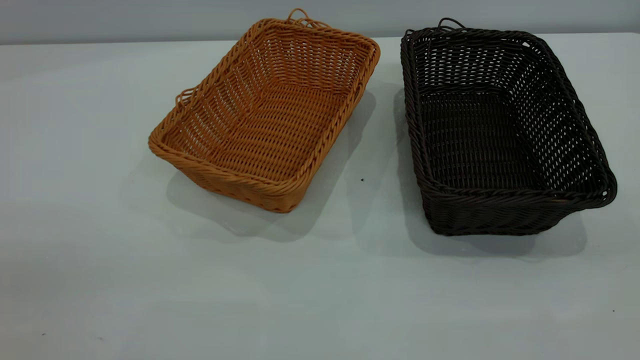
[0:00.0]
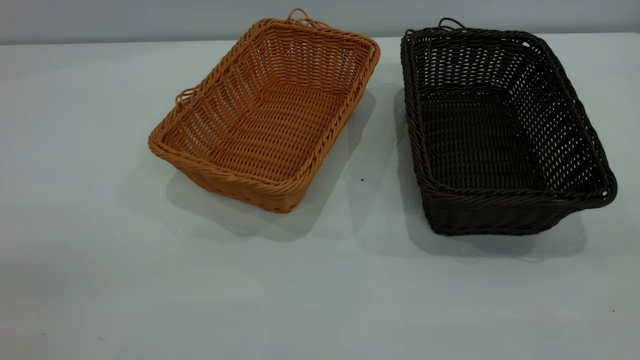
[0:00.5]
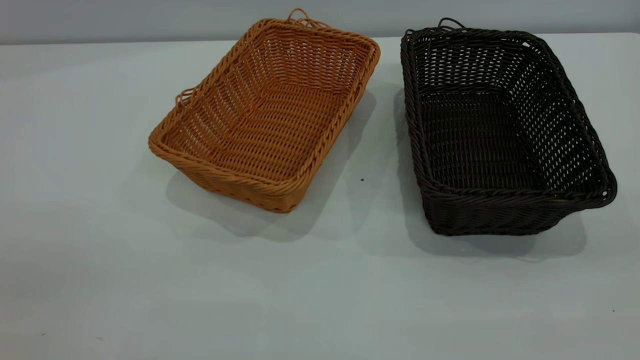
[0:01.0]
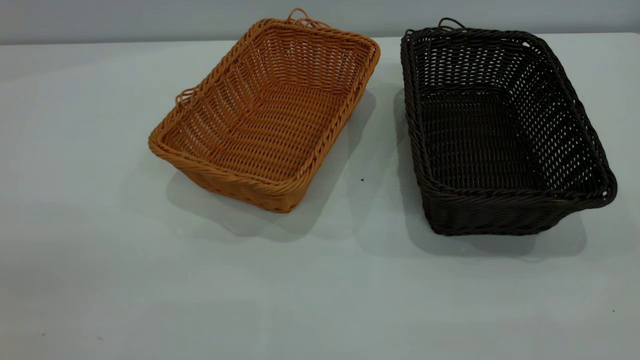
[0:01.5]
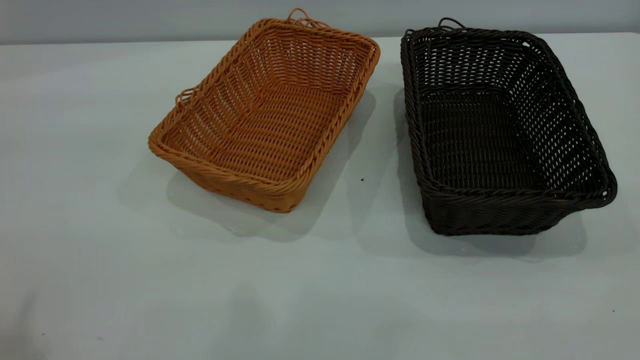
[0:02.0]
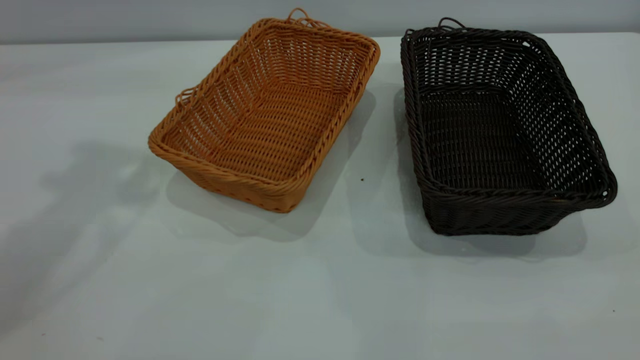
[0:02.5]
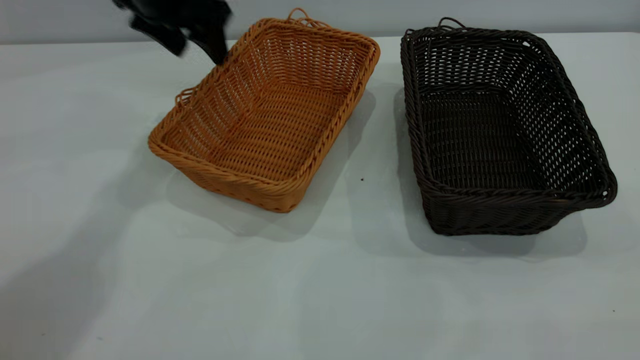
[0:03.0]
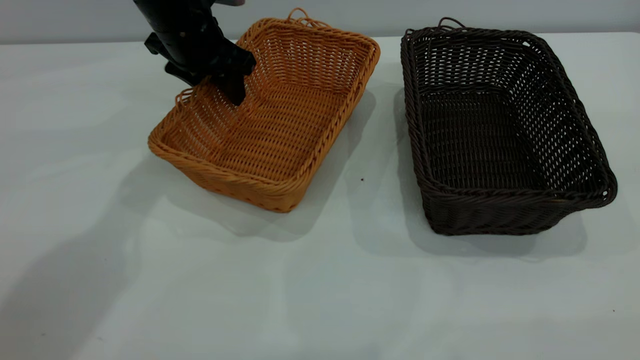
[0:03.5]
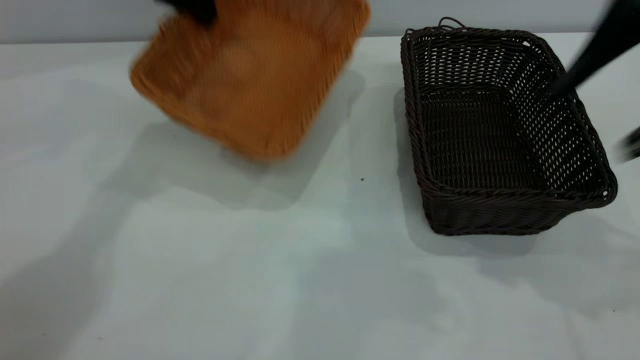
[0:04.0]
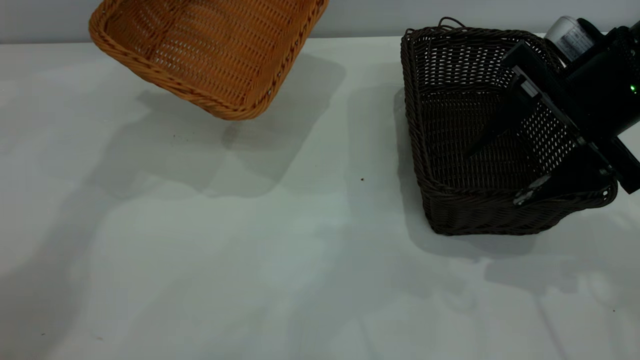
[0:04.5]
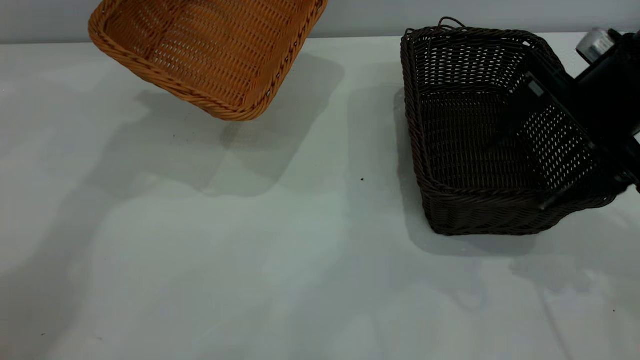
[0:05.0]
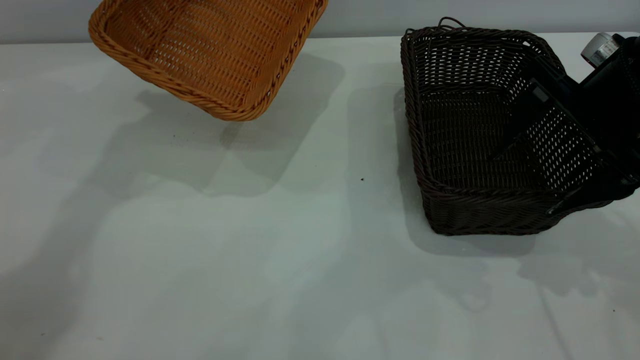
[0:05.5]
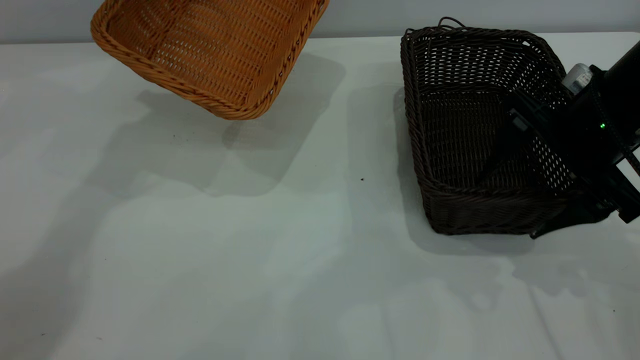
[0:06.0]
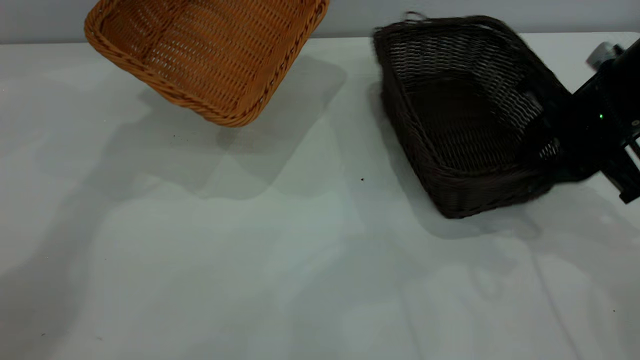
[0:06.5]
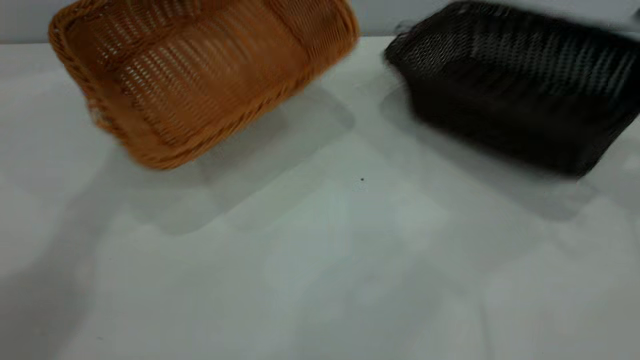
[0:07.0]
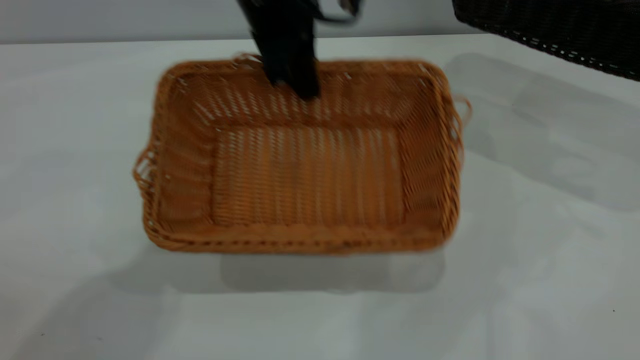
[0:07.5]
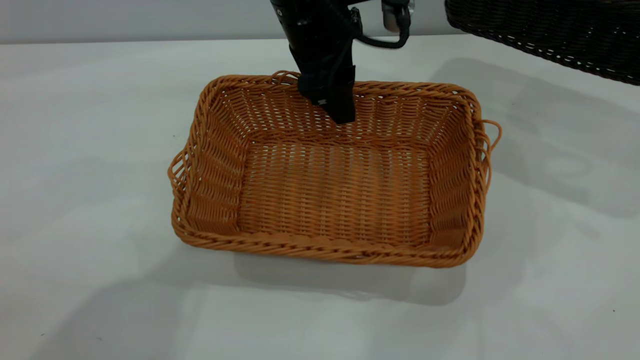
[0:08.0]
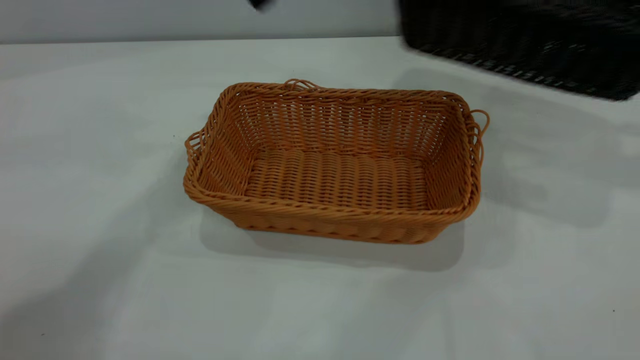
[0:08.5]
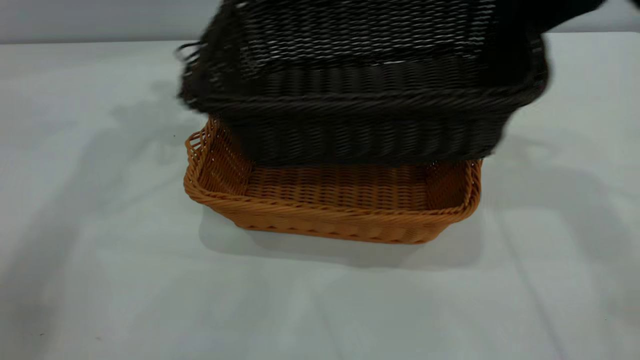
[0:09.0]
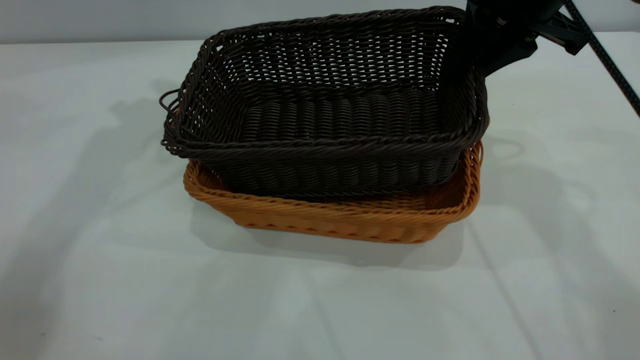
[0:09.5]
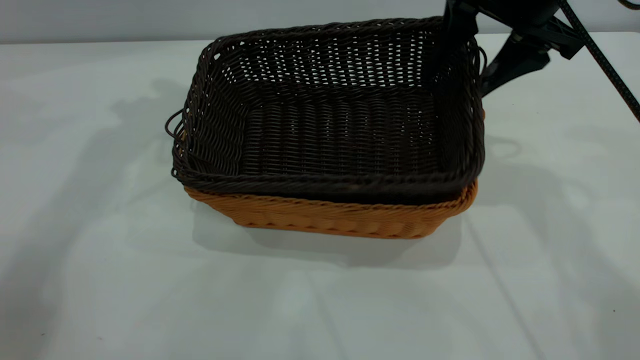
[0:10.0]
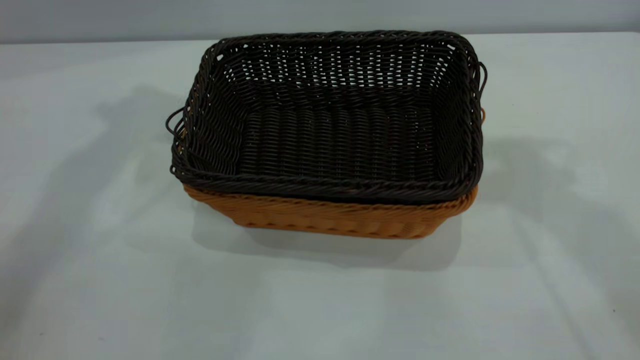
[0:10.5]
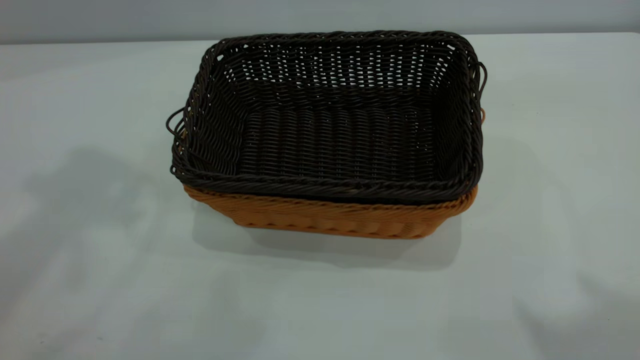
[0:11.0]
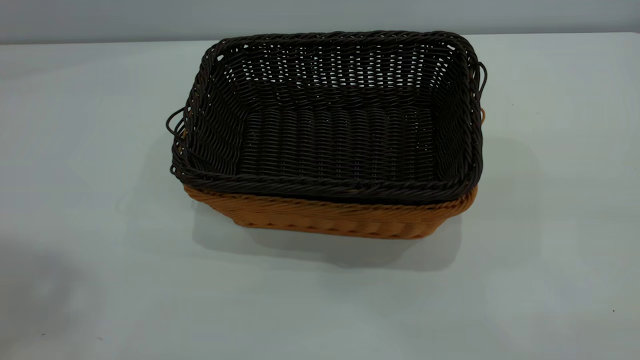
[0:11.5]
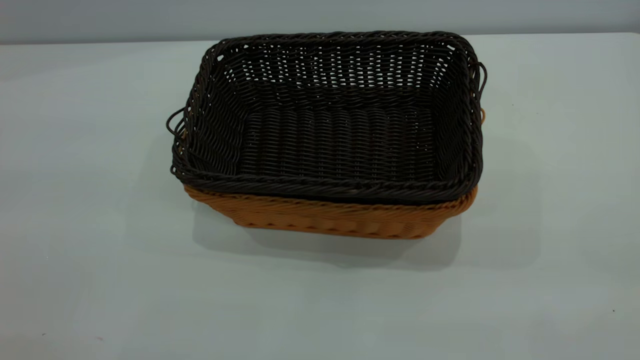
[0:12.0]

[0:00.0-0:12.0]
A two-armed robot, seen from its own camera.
Task of the whole recording: the left gripper grasp the brown basket and place it in the center of the table, the right gripper grasp the black basket and place it inside the brown one.
Step, 0:00.0 to 0:07.0: Pick up the light basket with the right gripper.
Step, 0:07.5 to 0:08.0: Place the light-colored basket in the center.
Step, 0:08.5 to 0:10.0: Place the dark basket on top of the light basket.
0:02.0 to 0:04.0: The right gripper travels forward by roughly 25 cm. The left gripper heads forward and downward, covering roughly 40 cm, and closes up.
0:04.0 to 0:06.0: The right gripper shifts about 10 cm downward.
0:06.0 to 0:08.0: The right gripper shifts approximately 25 cm to the right and upward, and closes. The left gripper heads to the right, backward and downward, covering approximately 20 cm, and opens its fingers.
0:08.0 to 0:10.0: The right gripper travels to the left by some 25 cm, and opens up, while the left gripper moves to the left and upward, some 25 cm.
0:10.0 to 0:12.0: Both grippers travel together backward, some 40 cm.

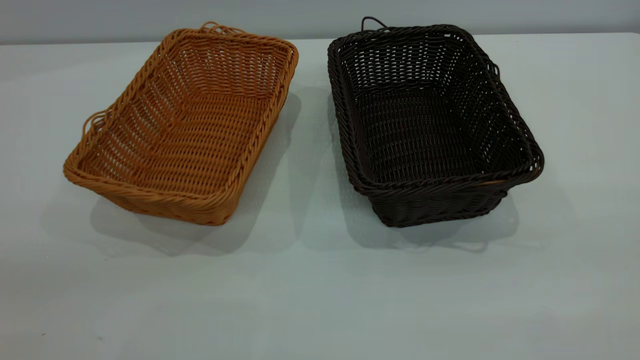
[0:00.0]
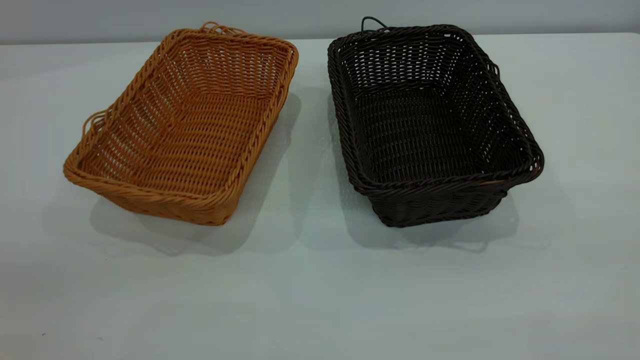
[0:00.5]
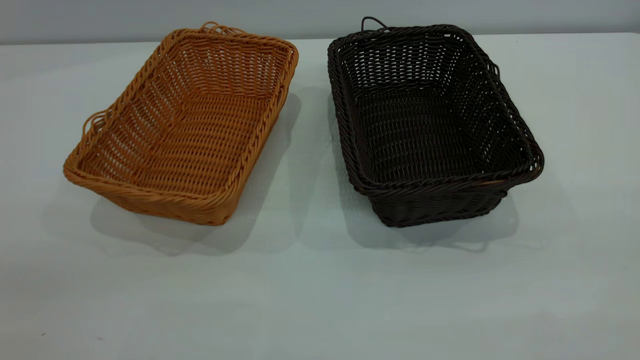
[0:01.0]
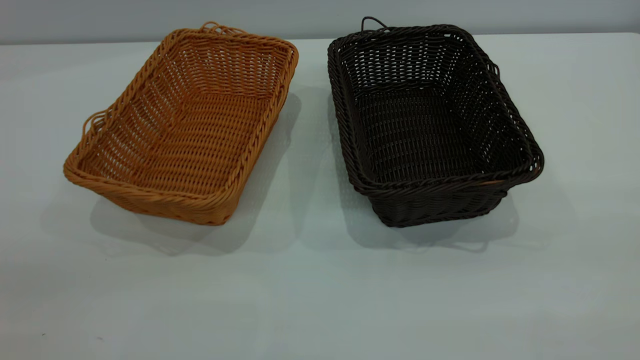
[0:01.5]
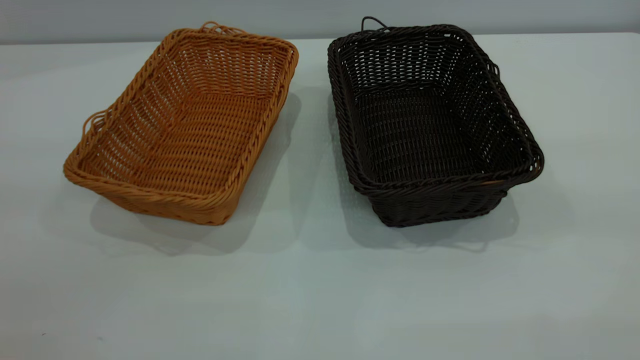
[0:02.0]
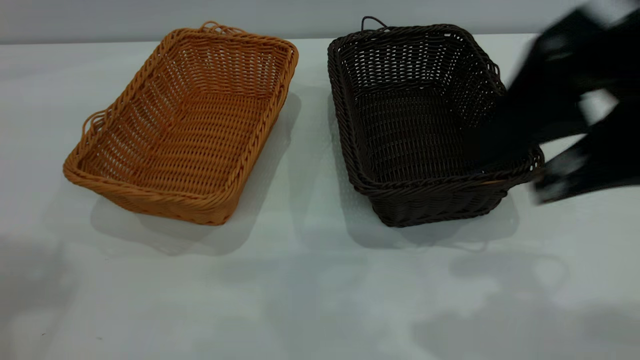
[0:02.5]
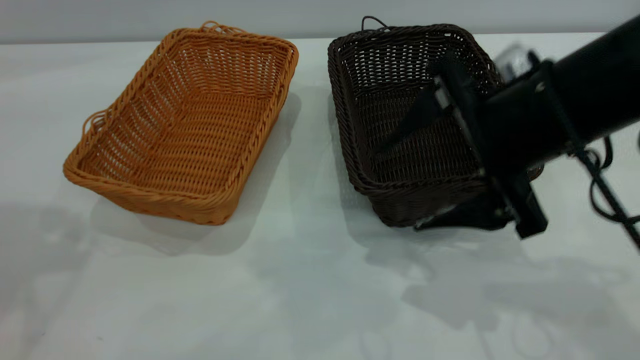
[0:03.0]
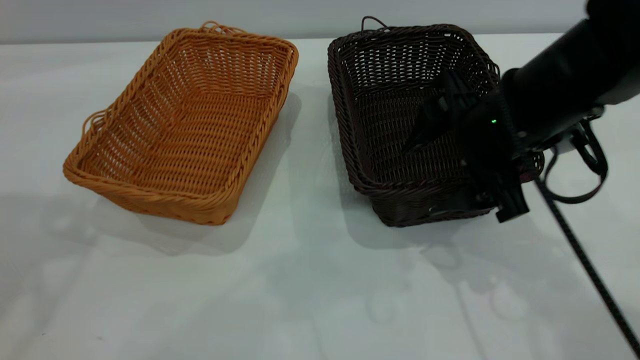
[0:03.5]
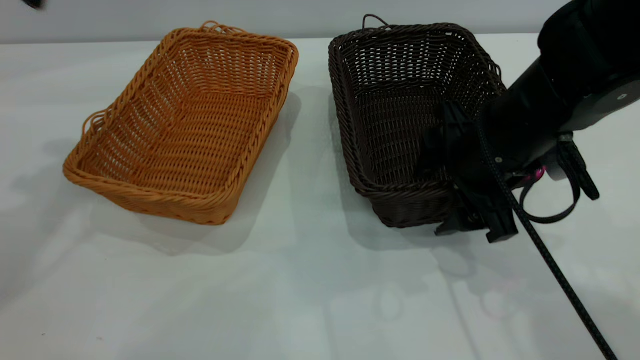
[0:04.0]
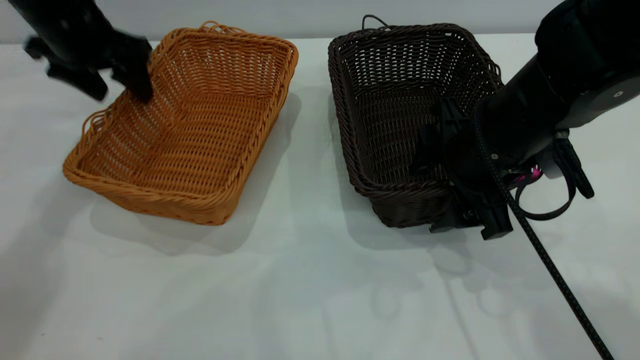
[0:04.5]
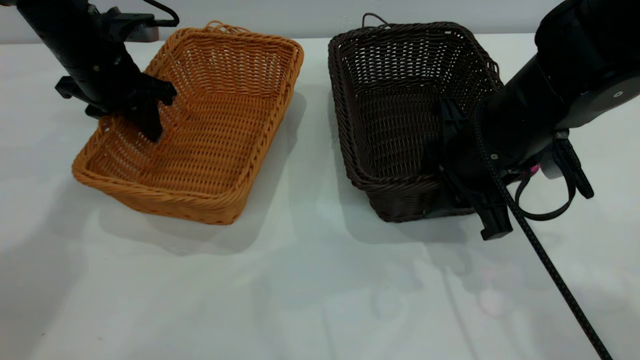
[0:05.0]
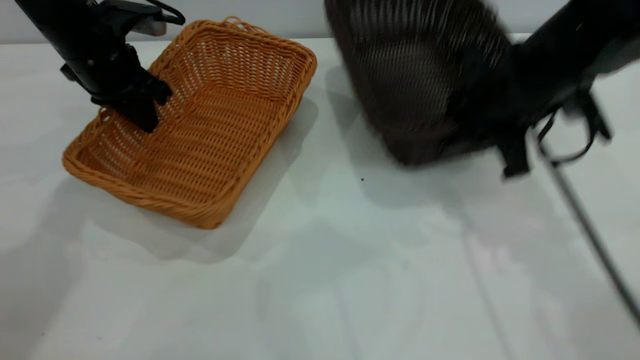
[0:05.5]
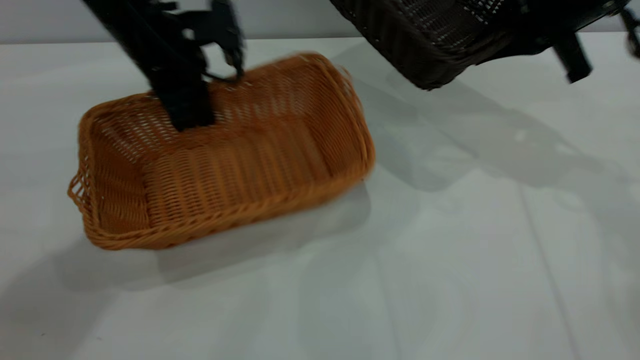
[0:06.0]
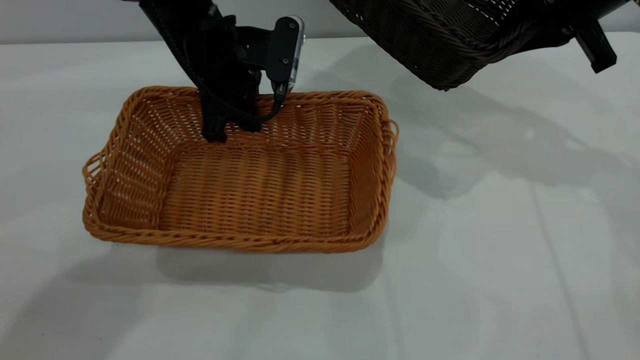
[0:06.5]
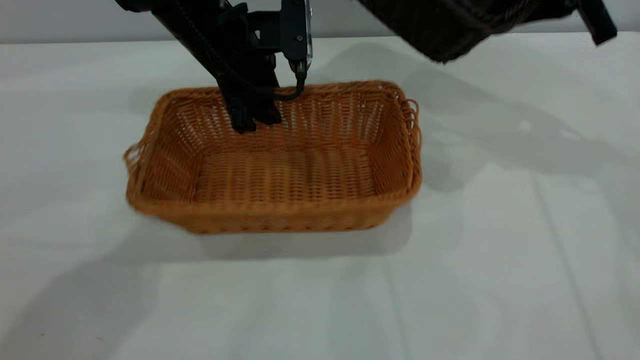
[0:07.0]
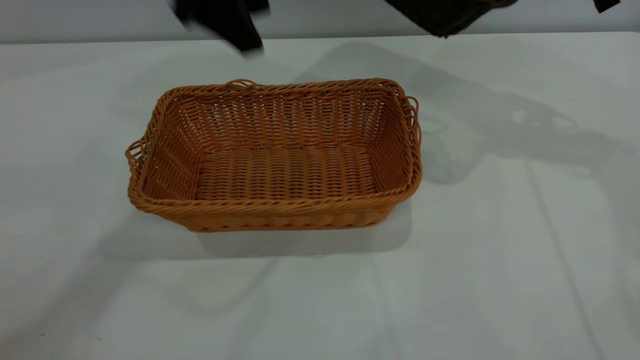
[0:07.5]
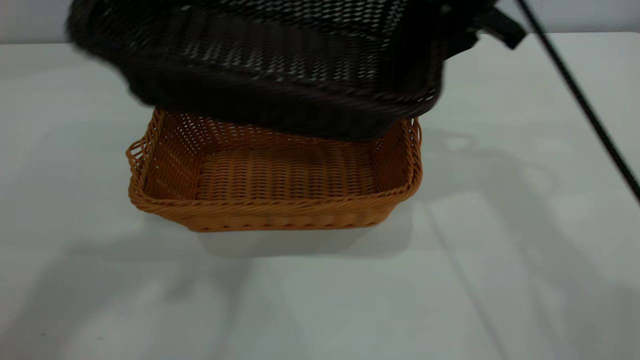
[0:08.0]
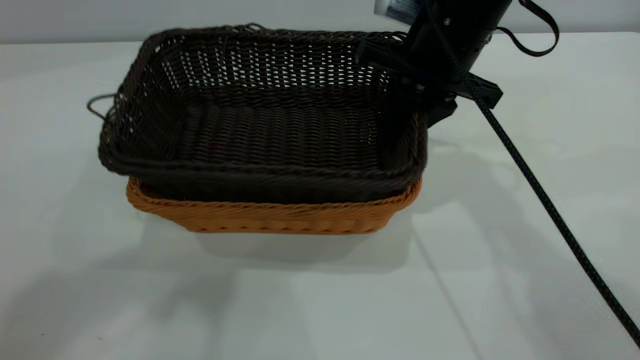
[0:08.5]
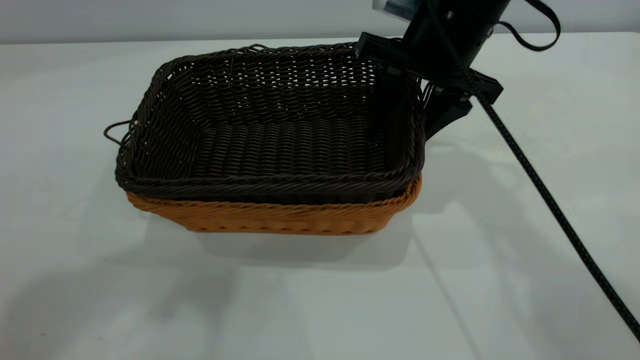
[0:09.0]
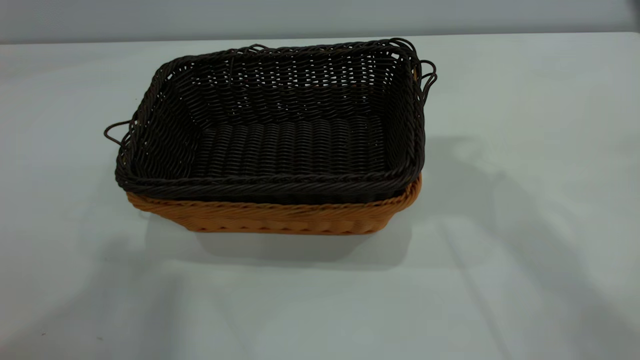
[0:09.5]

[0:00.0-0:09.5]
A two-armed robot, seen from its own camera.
Task of the whole recording: the left gripper grasp the brown basket and place it in the center of the table, the right gripper grasp the black basket and place it inside the brown one.
Step, 0:00.0 to 0:05.0: Pick up the light basket with the right gripper.
Step, 0:06.0 to 0:07.0: Place the light-colored basket in the center.
Step, 0:07.5 to 0:09.0: Place the dark basket on top of the light basket.
0:02.0 to 0:04.0: The right gripper heads downward and forward, covering roughly 35 cm.
0:04.0 to 0:05.5: The left gripper goes about 20 cm downward and forward, and closes up; the right gripper travels forward by approximately 5 cm, and closes.
0:05.5 to 0:07.5: The right gripper travels upward, forward and to the right by approximately 15 cm, while the left gripper shifts approximately 25 cm upward, to the right and backward, and opens.
0:07.5 to 0:09.5: The right gripper goes approximately 20 cm upward, to the left and backward, and opens its fingers. The left gripper travels upward and backward by some 30 cm.
